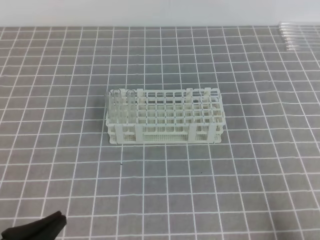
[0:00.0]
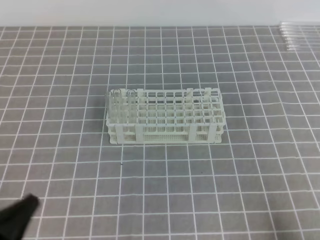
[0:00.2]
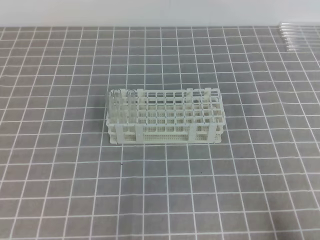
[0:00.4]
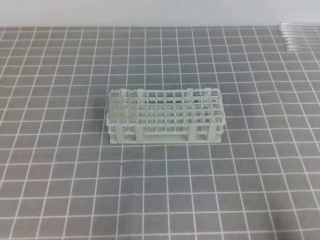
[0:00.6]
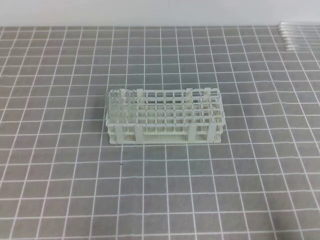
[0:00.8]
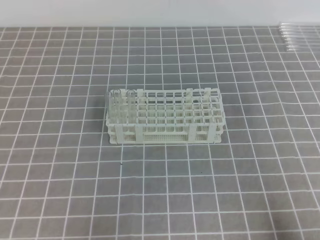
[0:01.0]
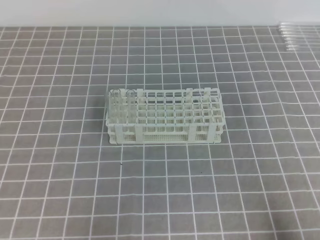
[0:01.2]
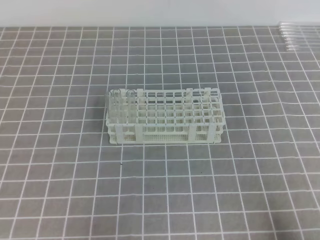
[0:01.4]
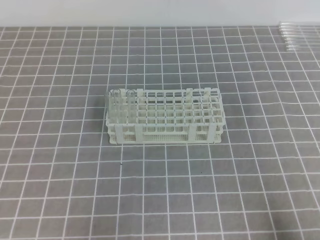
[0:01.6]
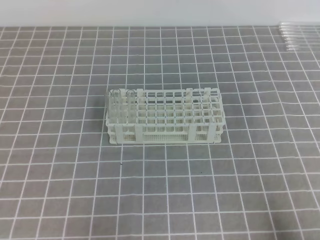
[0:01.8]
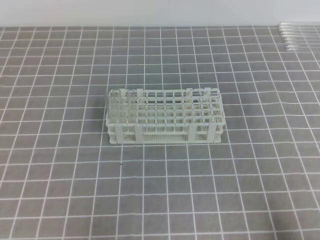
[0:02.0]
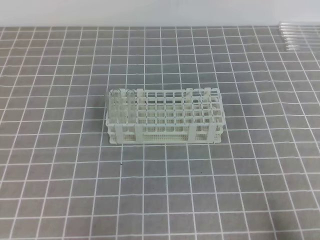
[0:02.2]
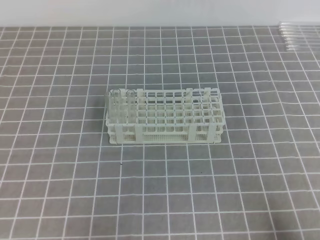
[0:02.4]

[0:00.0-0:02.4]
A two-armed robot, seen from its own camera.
0:01.2 to 0:02.4: Neither gripper changes place.
